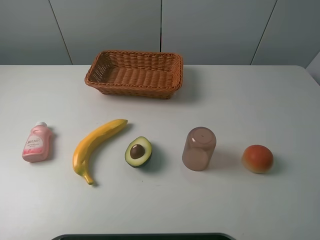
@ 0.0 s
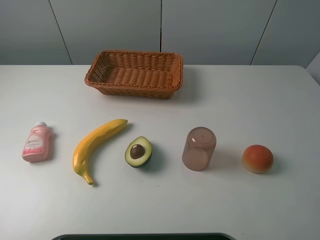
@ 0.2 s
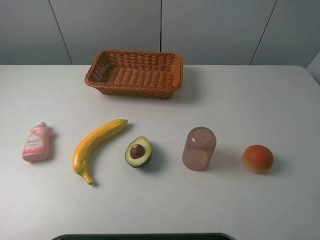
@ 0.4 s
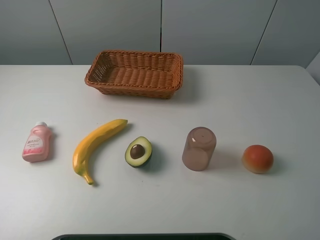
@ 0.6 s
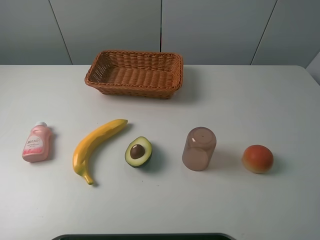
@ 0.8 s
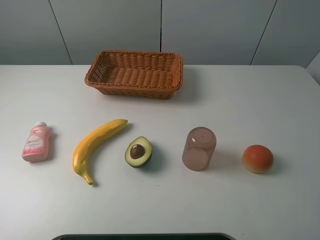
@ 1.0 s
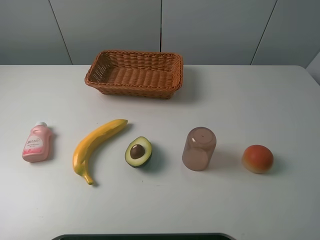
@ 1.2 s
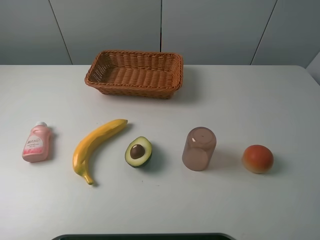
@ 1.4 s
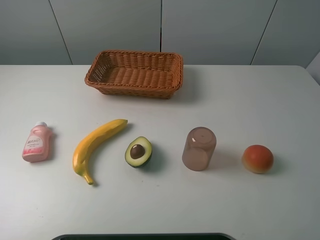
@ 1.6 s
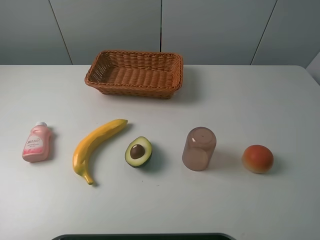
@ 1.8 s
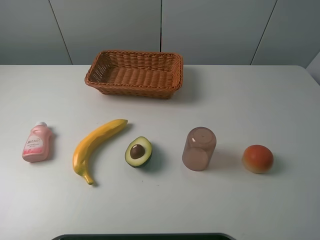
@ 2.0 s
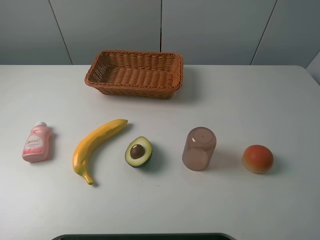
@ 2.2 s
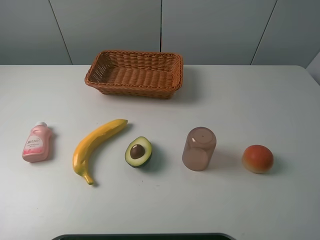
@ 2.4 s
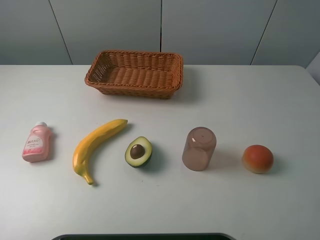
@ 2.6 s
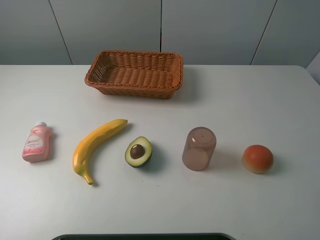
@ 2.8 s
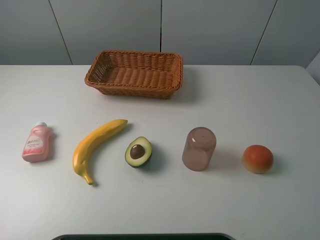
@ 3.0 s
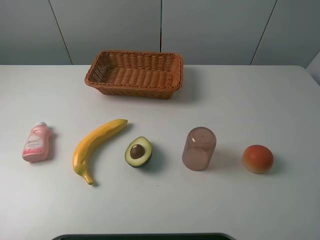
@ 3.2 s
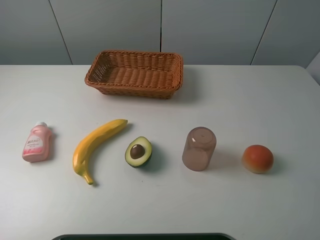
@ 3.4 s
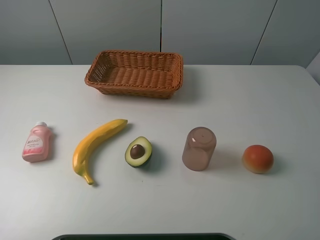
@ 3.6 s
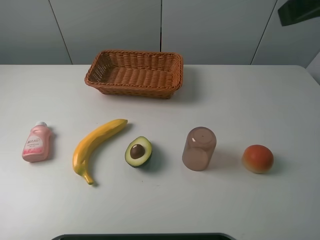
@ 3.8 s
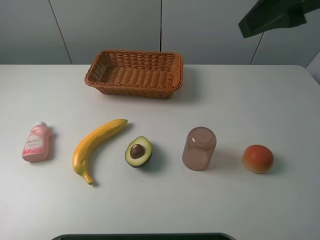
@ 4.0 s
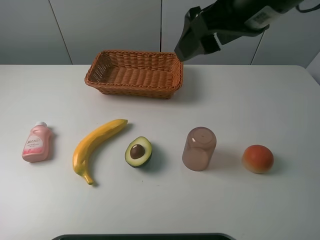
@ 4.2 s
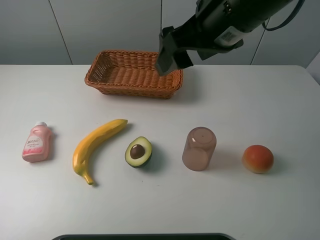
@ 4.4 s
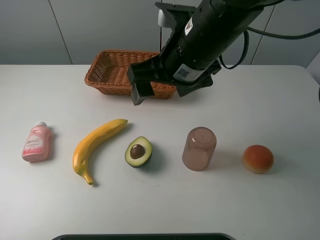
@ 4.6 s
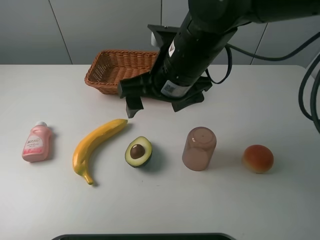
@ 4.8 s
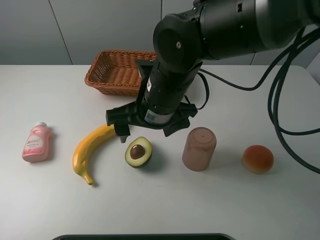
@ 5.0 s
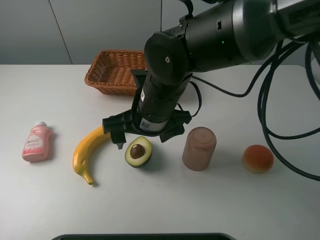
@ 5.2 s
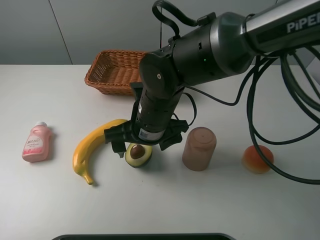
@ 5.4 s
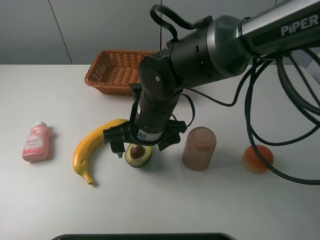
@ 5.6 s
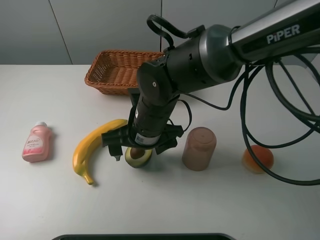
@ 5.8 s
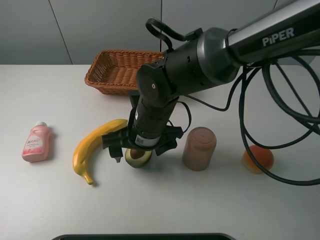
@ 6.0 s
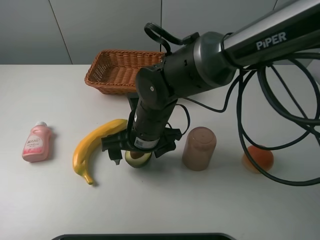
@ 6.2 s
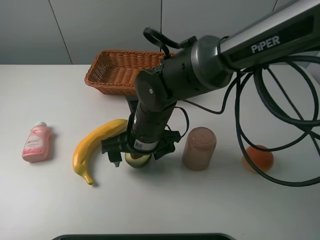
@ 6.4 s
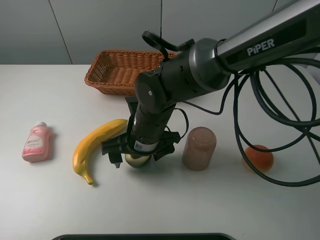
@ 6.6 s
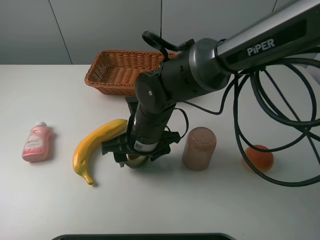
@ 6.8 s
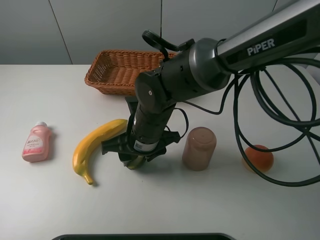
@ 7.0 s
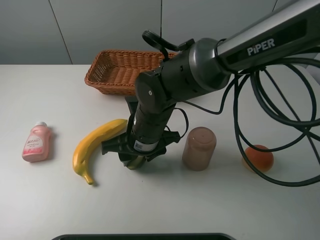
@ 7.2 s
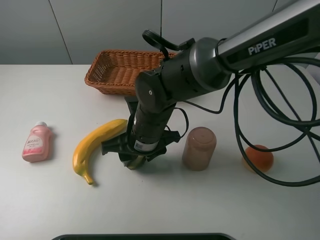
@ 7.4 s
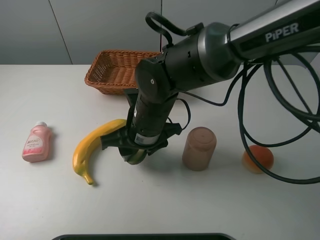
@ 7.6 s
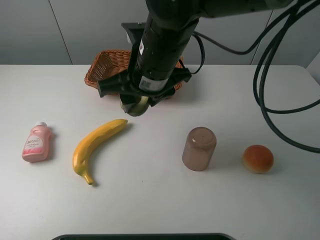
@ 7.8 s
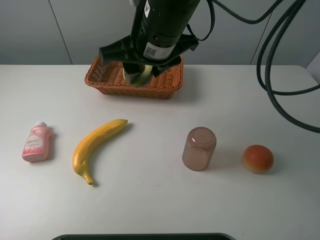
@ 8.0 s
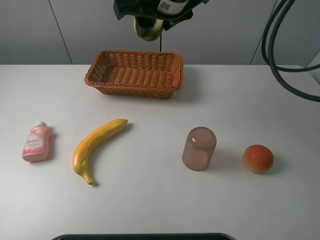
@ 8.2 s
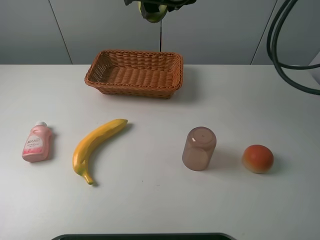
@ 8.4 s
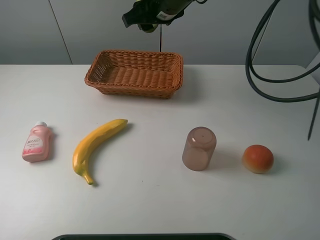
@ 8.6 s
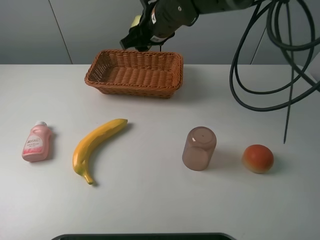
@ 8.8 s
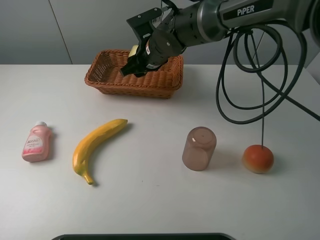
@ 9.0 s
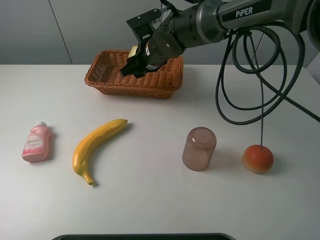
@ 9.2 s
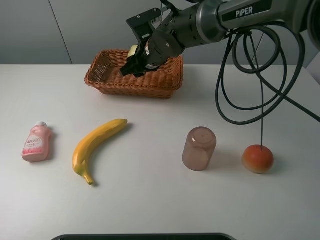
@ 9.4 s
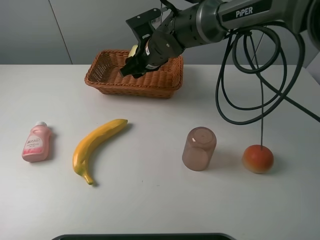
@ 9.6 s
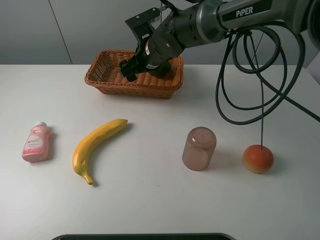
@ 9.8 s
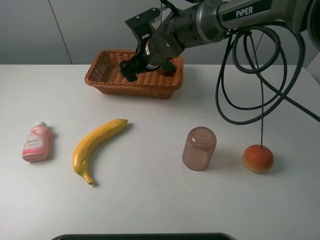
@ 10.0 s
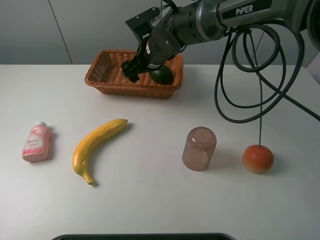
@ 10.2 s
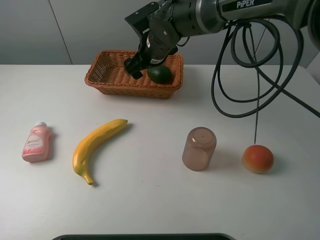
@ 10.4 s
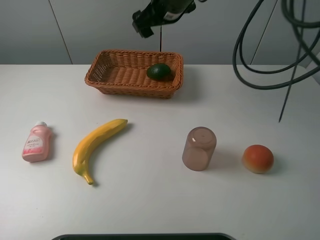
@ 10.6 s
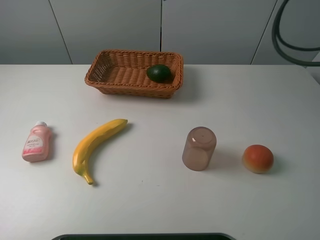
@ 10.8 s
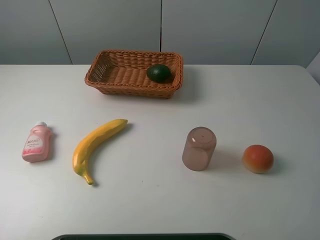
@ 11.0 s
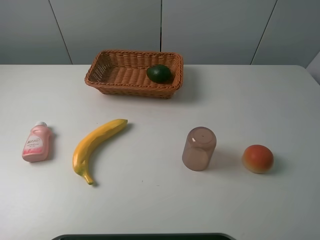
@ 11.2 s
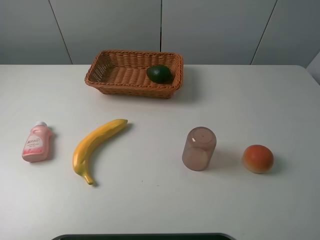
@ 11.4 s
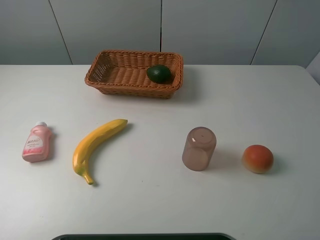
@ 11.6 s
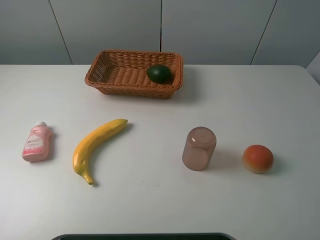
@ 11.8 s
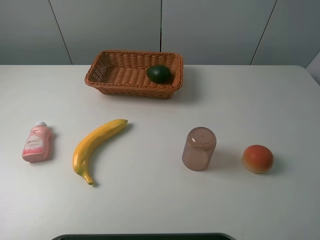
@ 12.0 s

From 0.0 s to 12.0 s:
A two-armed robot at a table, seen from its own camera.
Task of the whole recording: randomly pick up an item from the table and put it in the basket.
Step, from 0.0 s to 7.2 s: Grasp the avocado with the right gripper.
Step, from 7.4 s to 10.6 s: Place the avocado into the basket with the right gripper.
From 0.0 s to 1.6 s: Both grippers stay about where they are.
From 3.0 s to 4.4 s: The right gripper goes approximately 30 cm forward and to the left.
From 4.4 s to 6.0 s: The right gripper is displaced downward and to the left by some 20 cm.
From 6.0 s to 7.6 s: The right gripper closes up.
From 7.6 s to 9.0 s: The right gripper is displaced forward by approximately 15 cm, and goes upward and returns, approximately 15 cm each way.
From 9.0 s to 10.4 s: The right gripper opens its fingers.
From 10.4 s to 12.0 s: The right gripper goes approximately 50 cm backward, to the right and upward.
